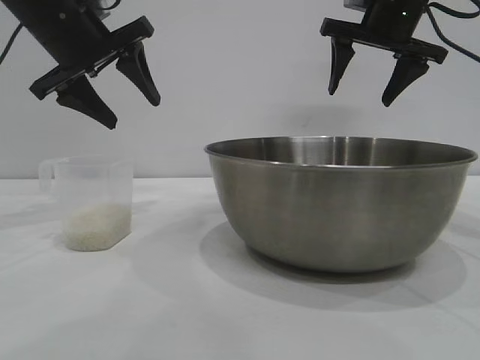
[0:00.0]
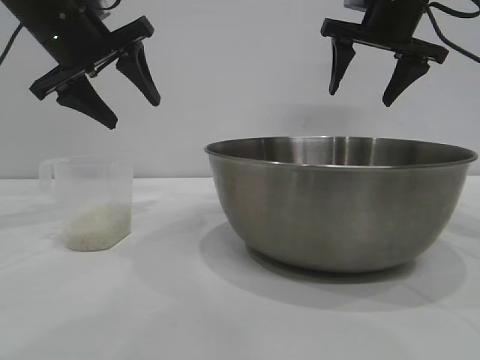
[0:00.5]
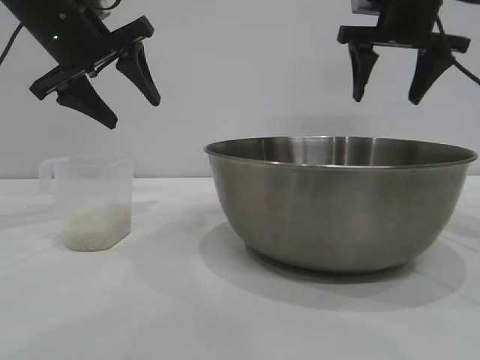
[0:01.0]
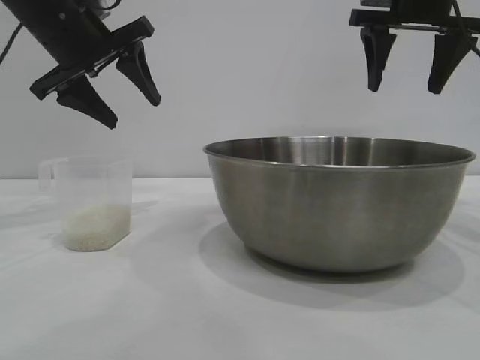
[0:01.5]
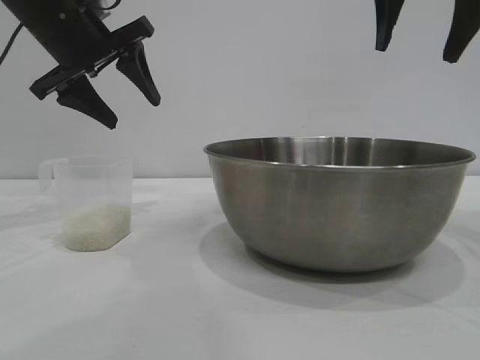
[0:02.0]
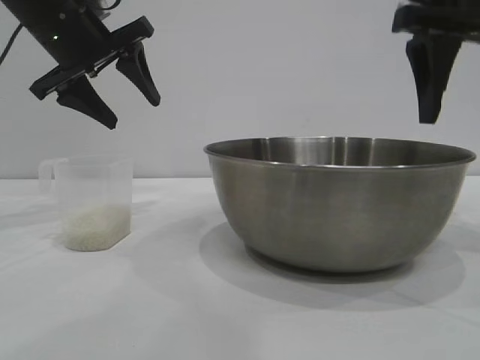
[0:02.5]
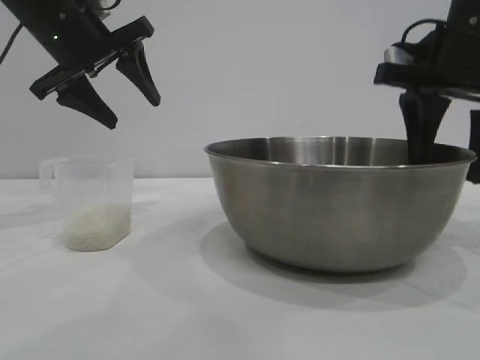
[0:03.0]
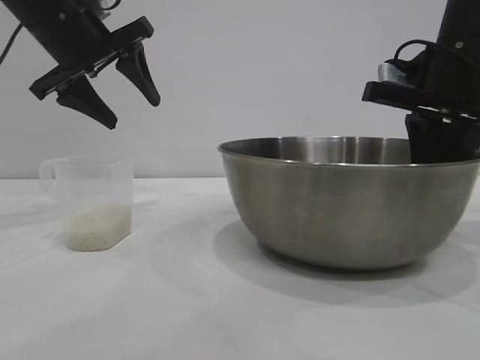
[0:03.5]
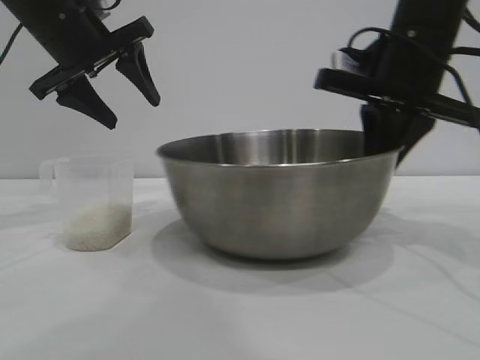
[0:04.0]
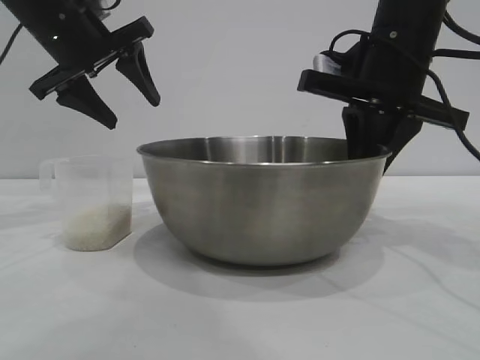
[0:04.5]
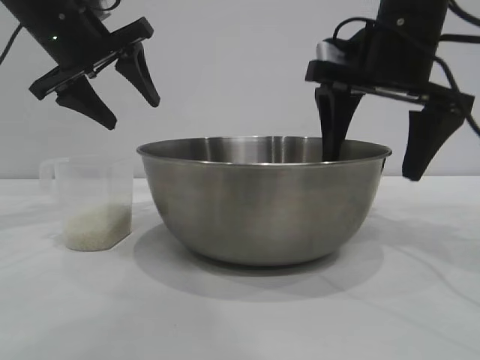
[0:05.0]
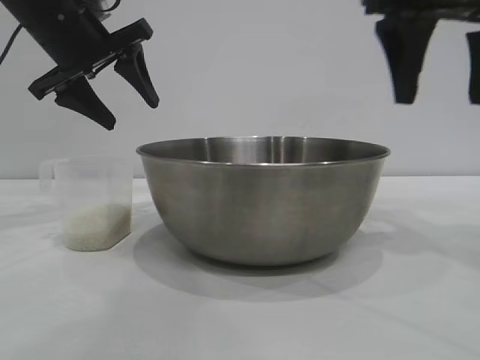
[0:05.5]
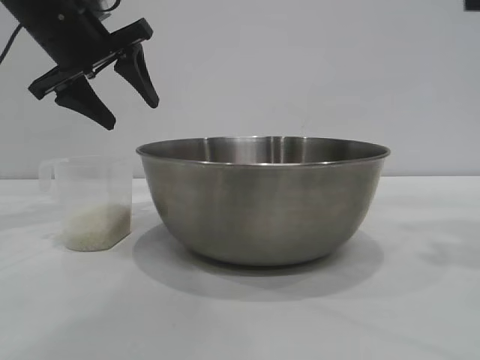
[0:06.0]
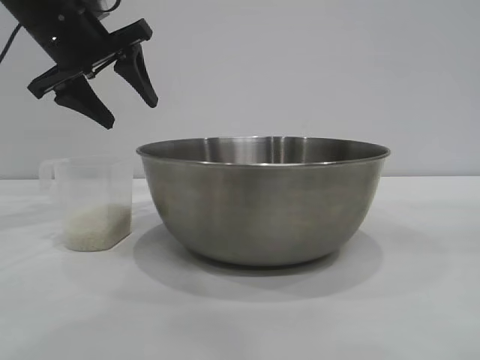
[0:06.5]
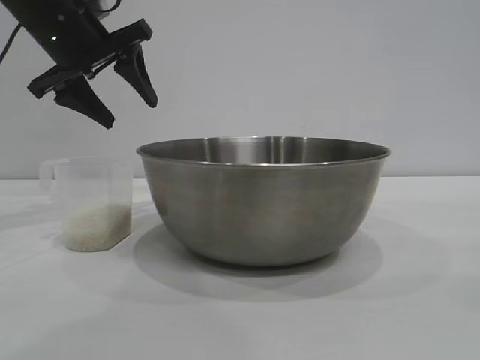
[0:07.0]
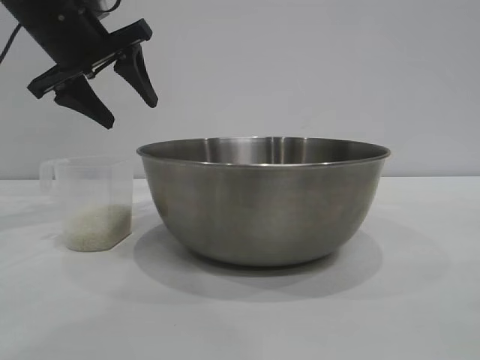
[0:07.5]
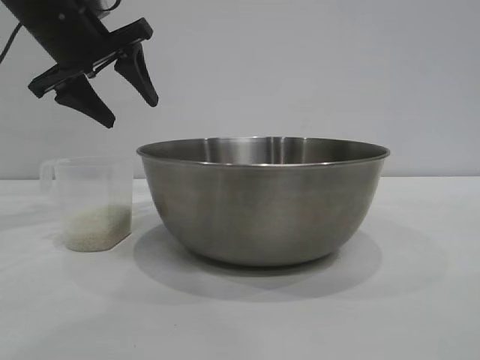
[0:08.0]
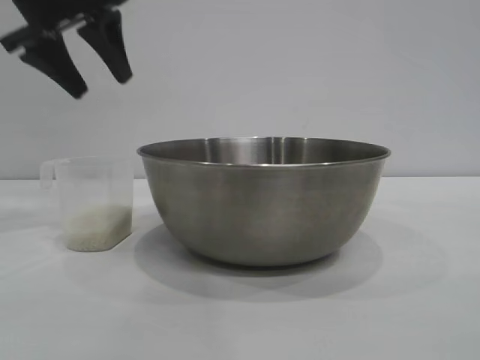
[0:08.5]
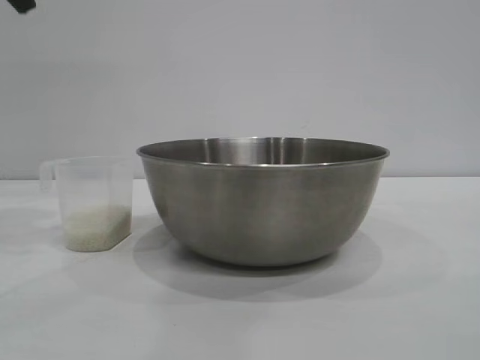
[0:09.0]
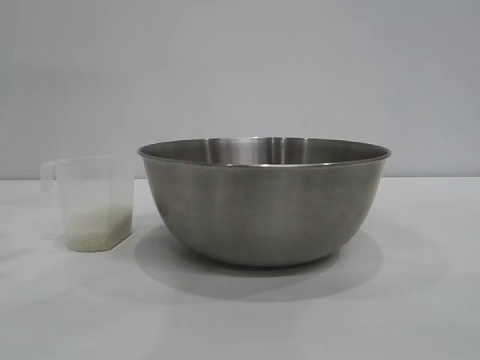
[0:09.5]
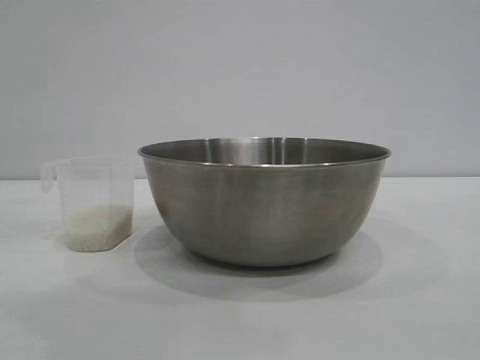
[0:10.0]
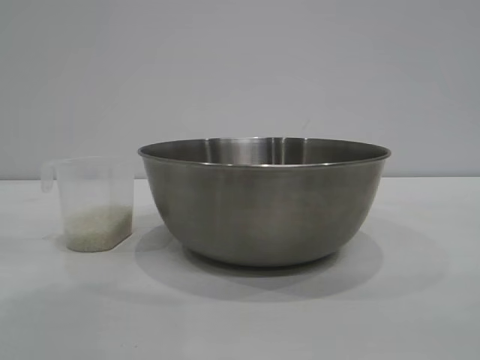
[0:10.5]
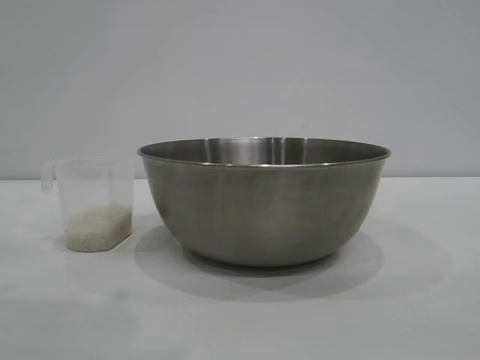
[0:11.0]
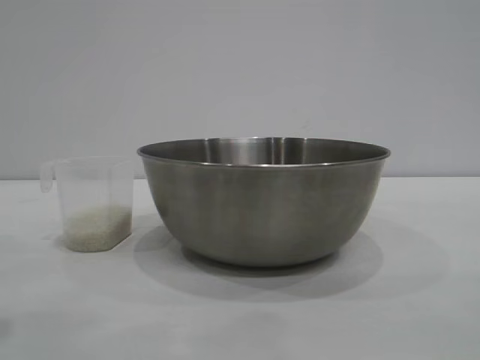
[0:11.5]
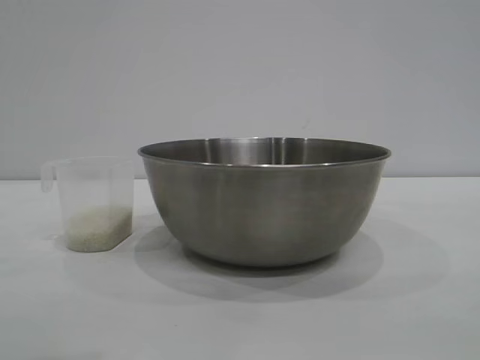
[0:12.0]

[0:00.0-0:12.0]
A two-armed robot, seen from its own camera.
Task of the whole recording: the right gripper grasp the rice container and place it in the center of the table, the left gripper grasp the rice scoop and pour the rice into the rice container.
Step, 0:00.0 to 0:05.5: Move the bowl to the center of view with the right gripper.

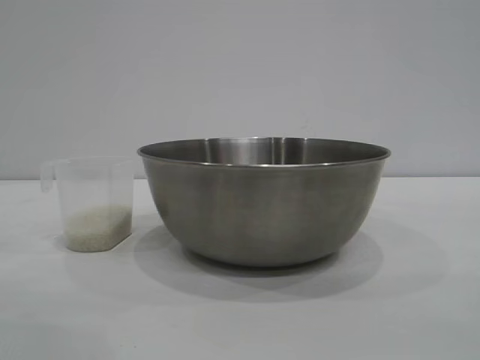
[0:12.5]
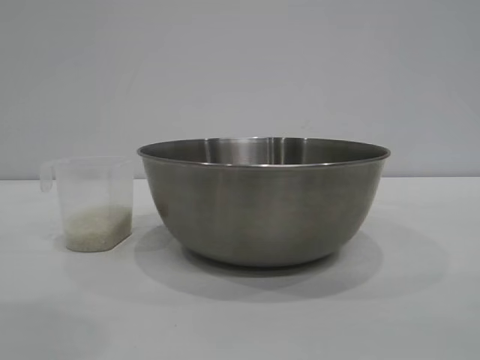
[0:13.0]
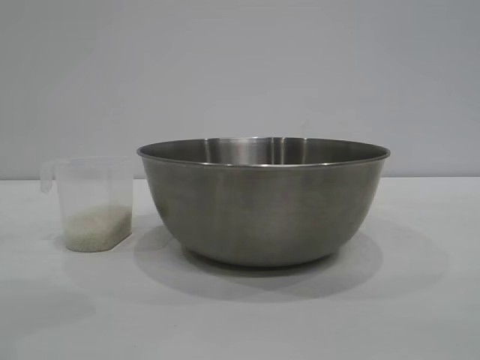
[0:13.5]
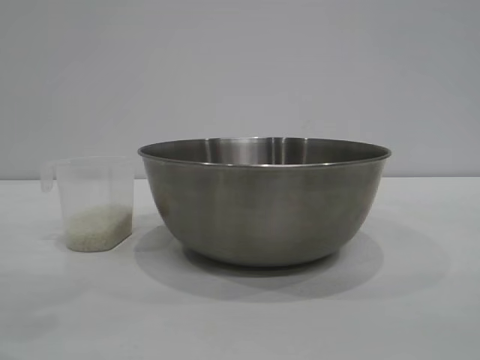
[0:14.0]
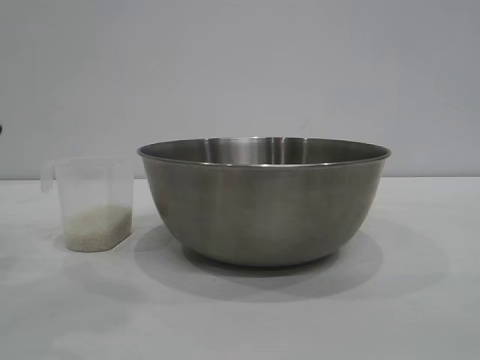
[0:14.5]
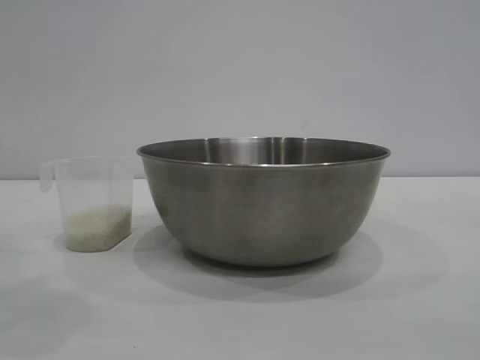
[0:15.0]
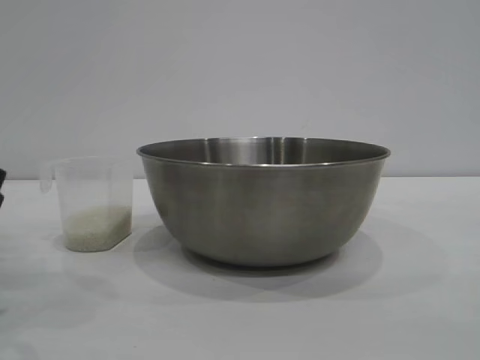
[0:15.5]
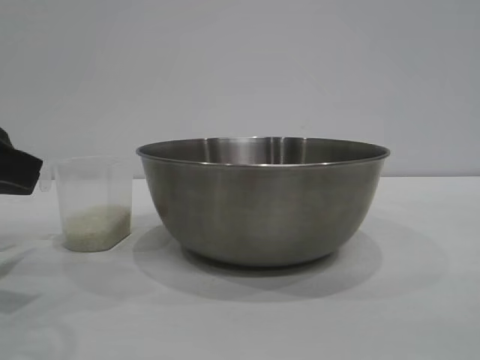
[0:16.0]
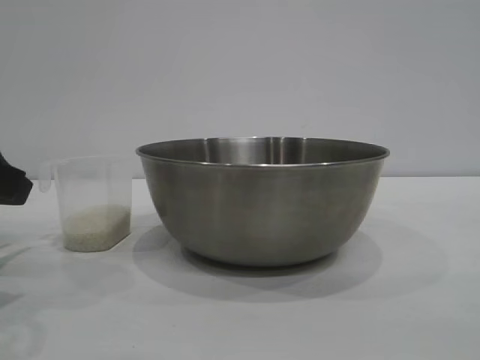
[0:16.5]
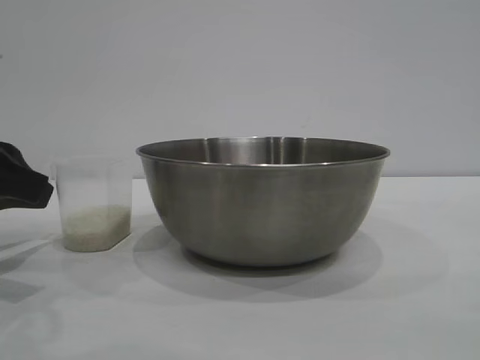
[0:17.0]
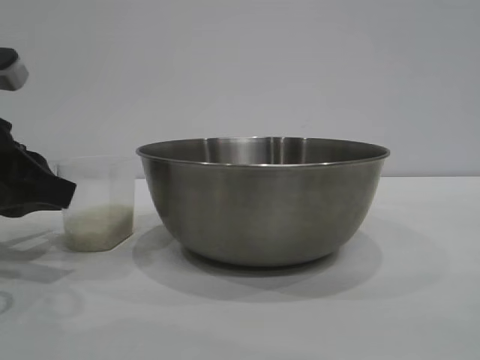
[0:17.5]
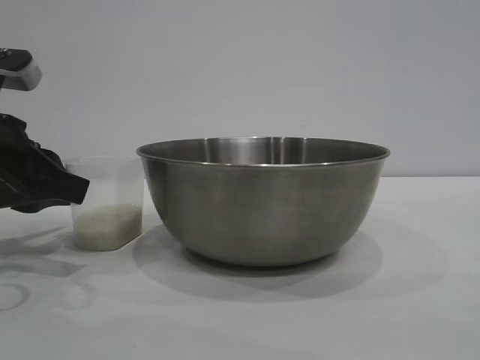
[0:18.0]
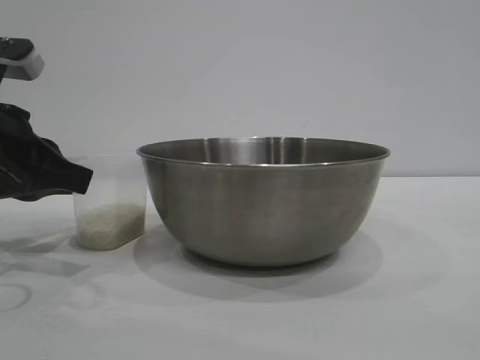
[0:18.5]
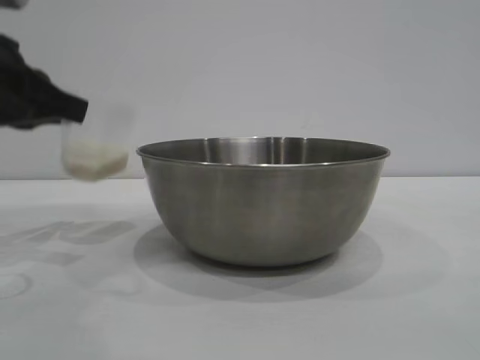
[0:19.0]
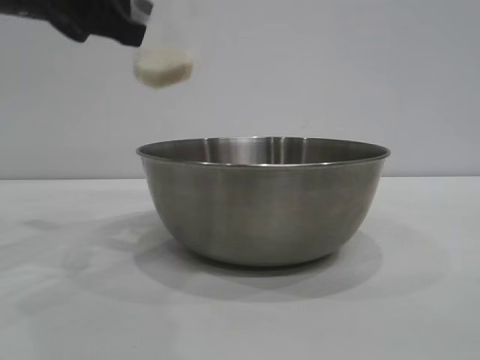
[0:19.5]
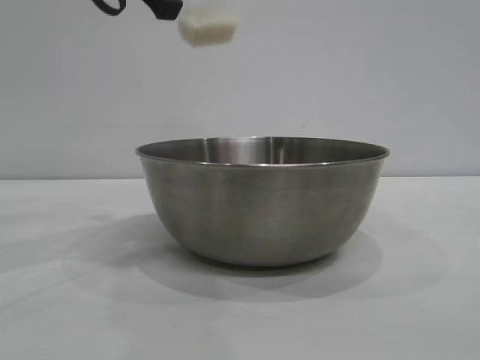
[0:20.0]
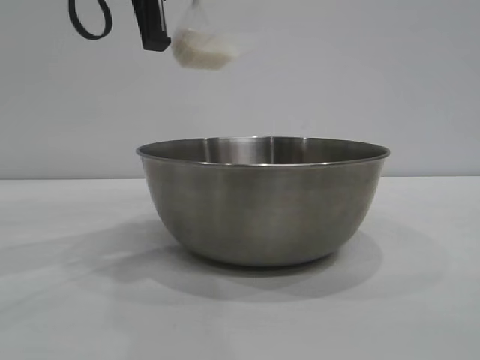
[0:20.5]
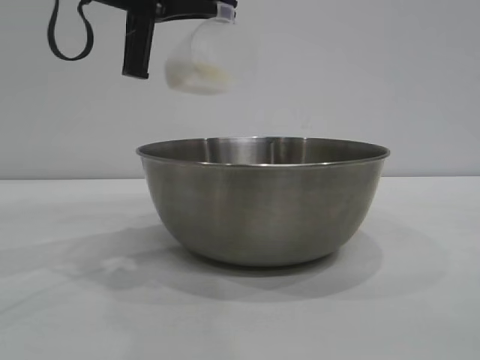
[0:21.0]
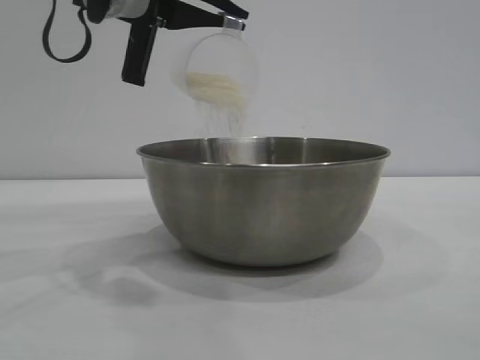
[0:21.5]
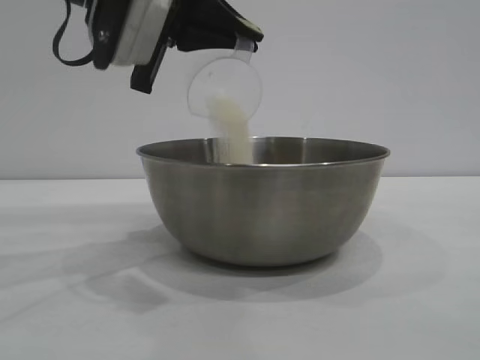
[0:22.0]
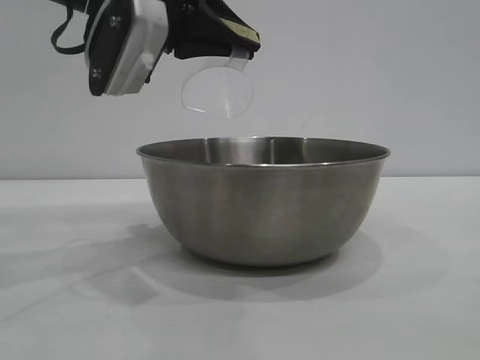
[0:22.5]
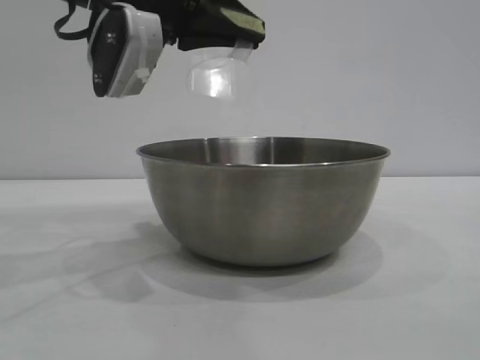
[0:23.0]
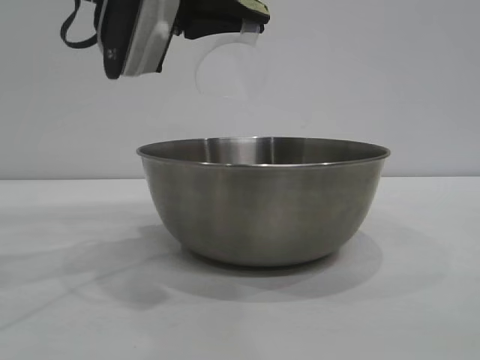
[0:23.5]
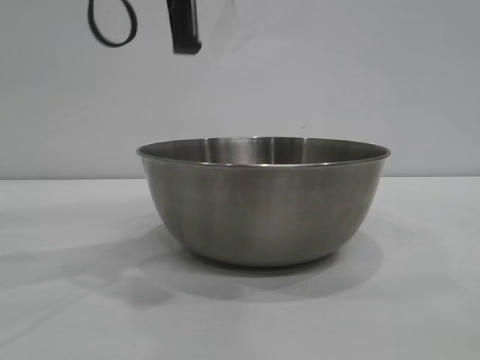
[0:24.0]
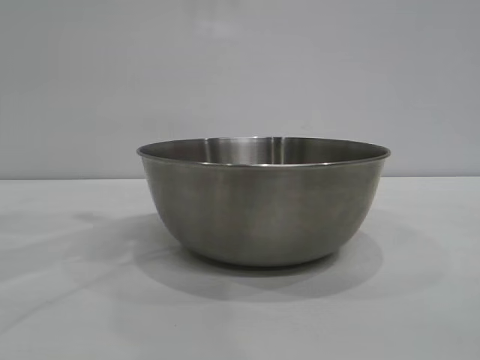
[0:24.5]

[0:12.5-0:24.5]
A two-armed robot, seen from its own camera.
Task of the whole recording: the right gripper grasp the rice container and place it in the center of the table, the left gripper grasp the rice scoop and pour the rice into the rice container.
Step, 0:12.5 to 0:18.5: Pick up the cup with rice in it with the left gripper.
Step, 0:19.0 to 0:22.5: Pour the rice from the cup into the bowl with the left gripper.

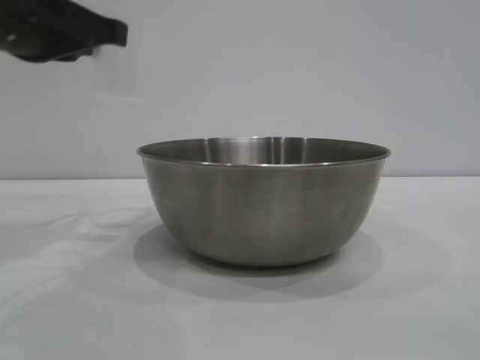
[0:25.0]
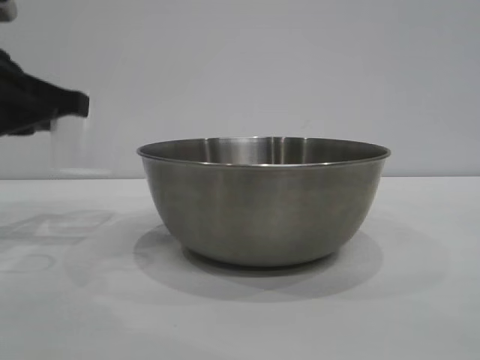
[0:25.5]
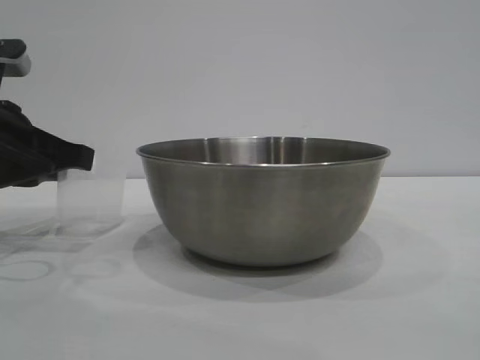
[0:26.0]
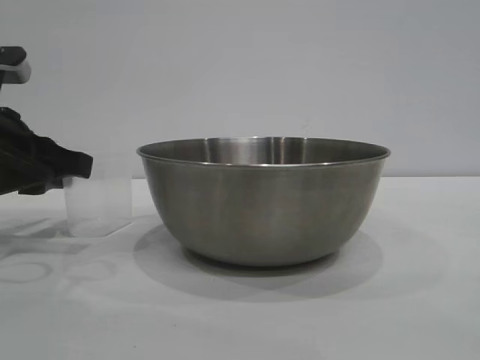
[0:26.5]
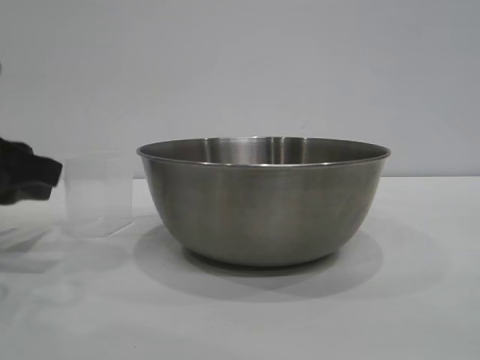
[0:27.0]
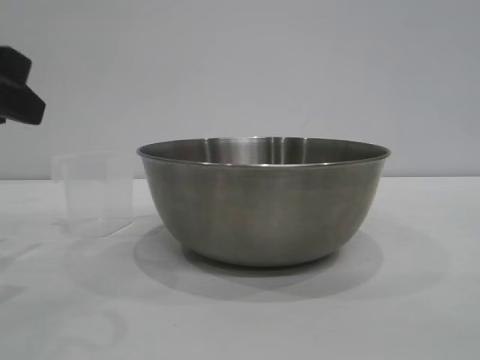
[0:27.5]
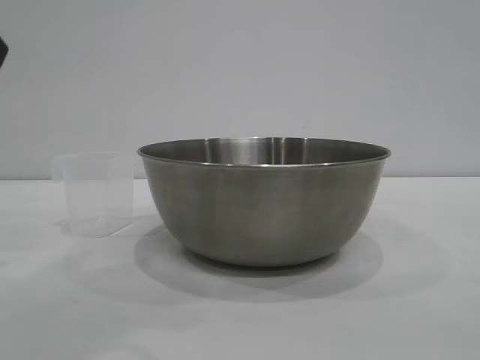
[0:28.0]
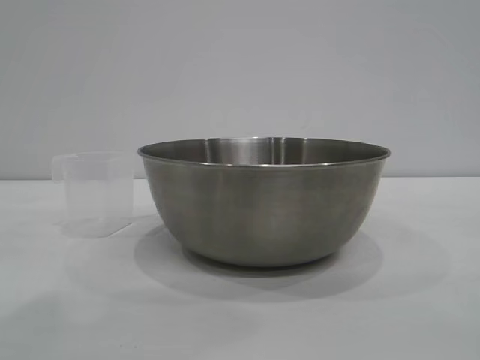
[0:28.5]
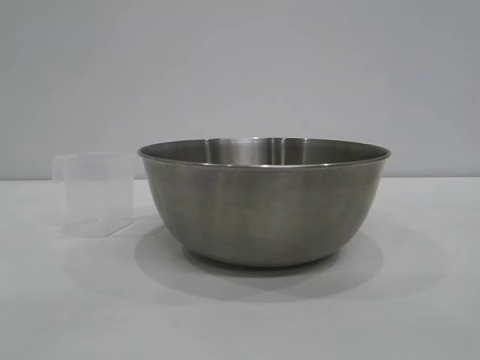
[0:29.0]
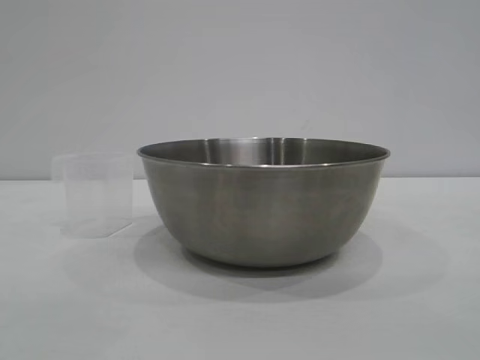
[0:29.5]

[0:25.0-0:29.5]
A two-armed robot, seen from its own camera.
Task of the whole recording: the right gripper grasp the rice container and place it in the center of the table, the left gripper grasp the rice scoop and pour the rice into the rice container.
Step, 0:25.0 to 0:27.0: Place the cup on the table with the left gripper.
